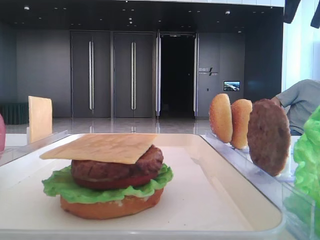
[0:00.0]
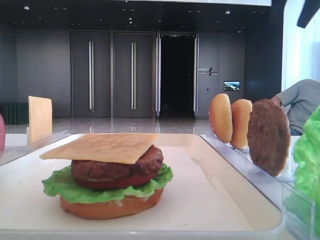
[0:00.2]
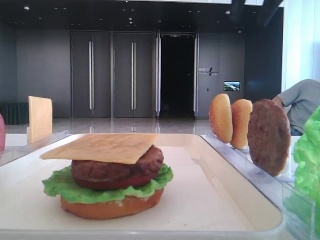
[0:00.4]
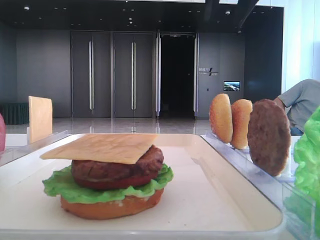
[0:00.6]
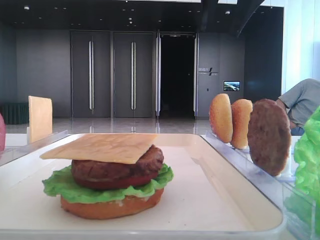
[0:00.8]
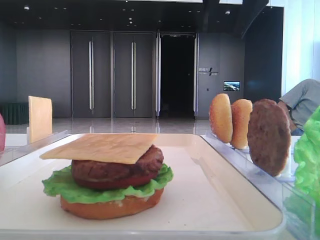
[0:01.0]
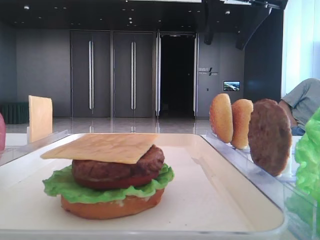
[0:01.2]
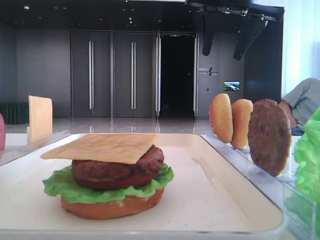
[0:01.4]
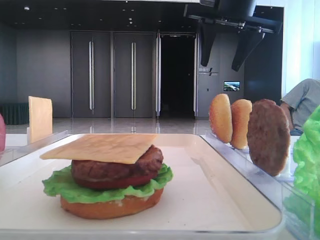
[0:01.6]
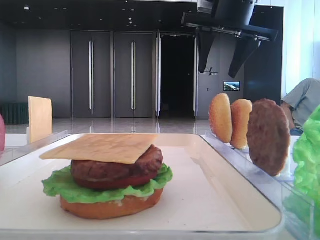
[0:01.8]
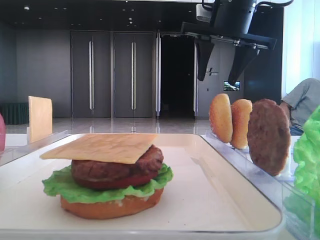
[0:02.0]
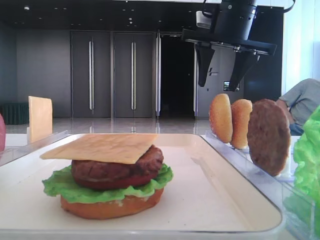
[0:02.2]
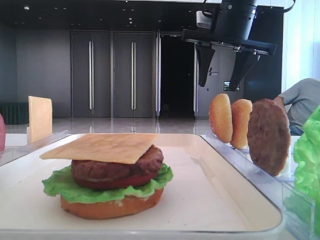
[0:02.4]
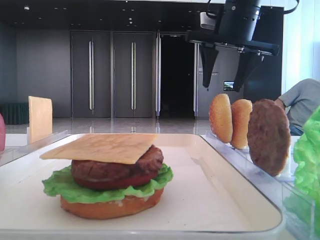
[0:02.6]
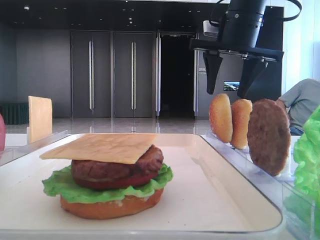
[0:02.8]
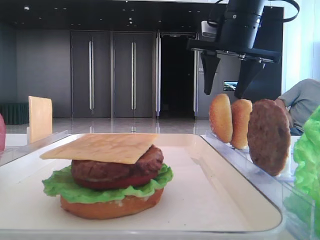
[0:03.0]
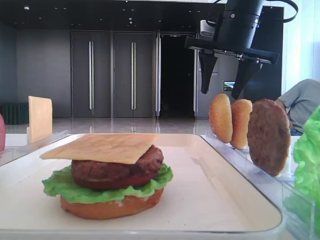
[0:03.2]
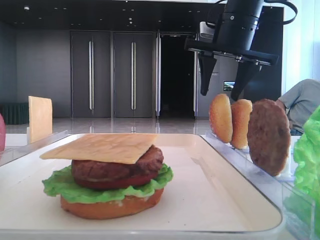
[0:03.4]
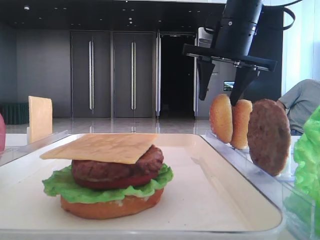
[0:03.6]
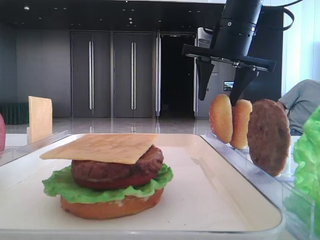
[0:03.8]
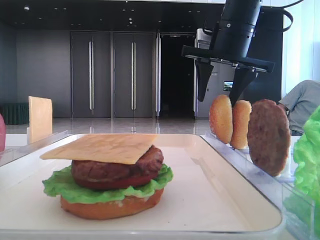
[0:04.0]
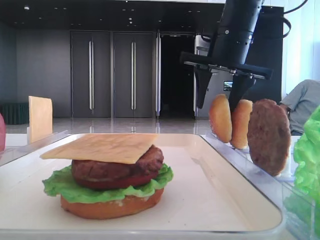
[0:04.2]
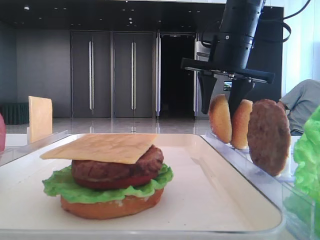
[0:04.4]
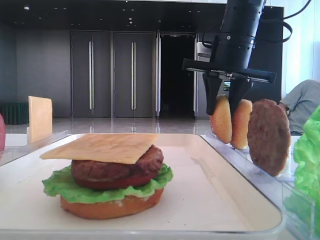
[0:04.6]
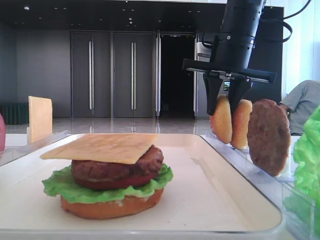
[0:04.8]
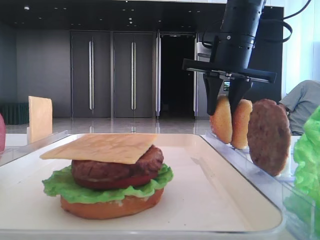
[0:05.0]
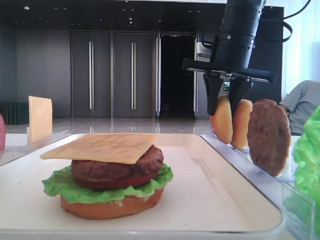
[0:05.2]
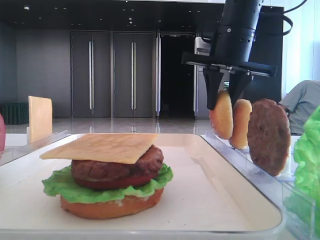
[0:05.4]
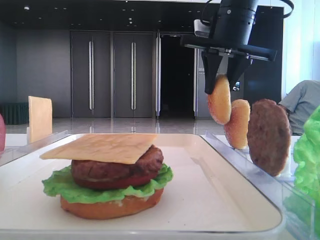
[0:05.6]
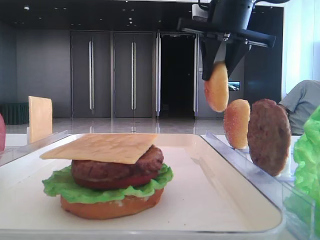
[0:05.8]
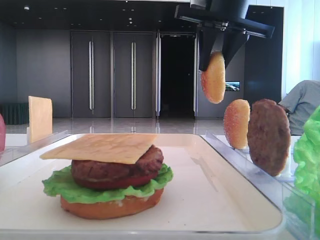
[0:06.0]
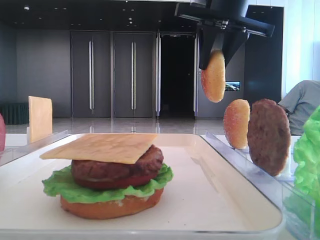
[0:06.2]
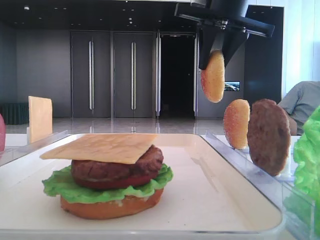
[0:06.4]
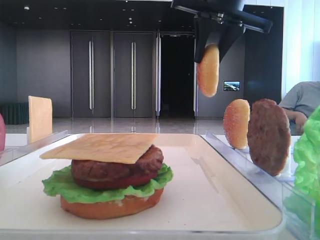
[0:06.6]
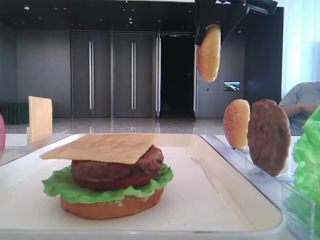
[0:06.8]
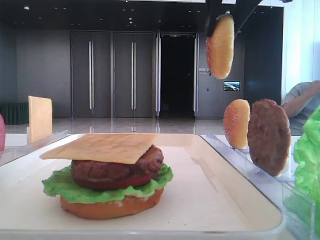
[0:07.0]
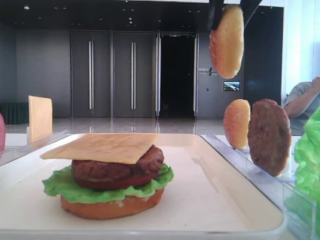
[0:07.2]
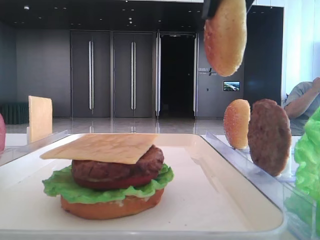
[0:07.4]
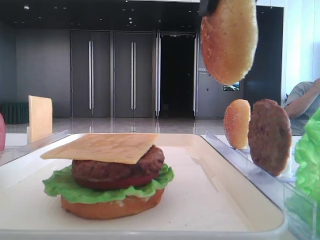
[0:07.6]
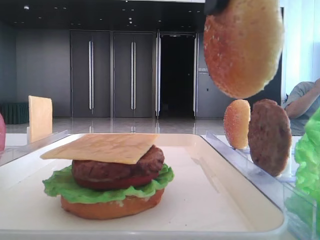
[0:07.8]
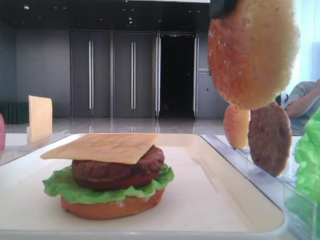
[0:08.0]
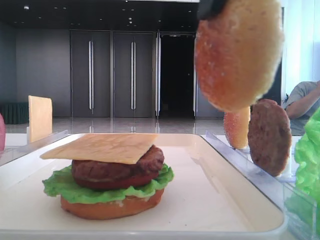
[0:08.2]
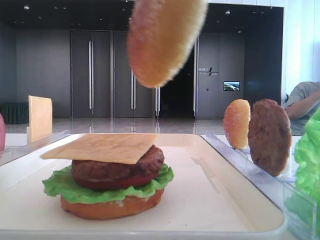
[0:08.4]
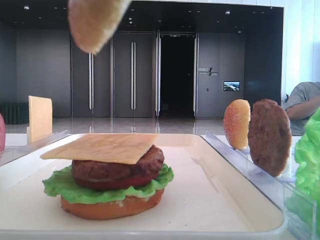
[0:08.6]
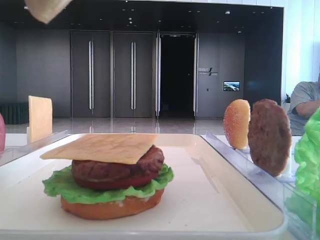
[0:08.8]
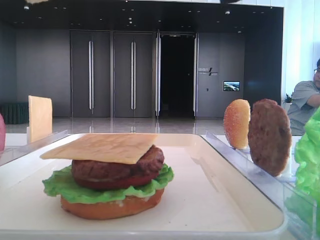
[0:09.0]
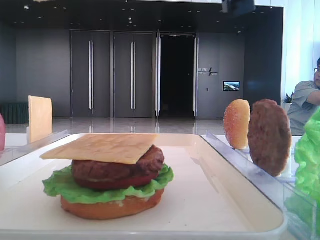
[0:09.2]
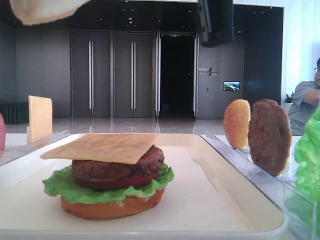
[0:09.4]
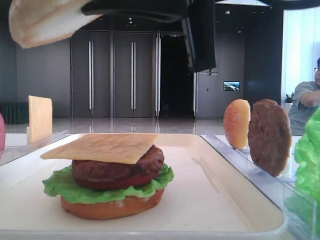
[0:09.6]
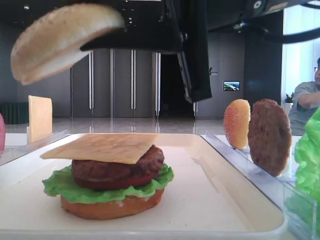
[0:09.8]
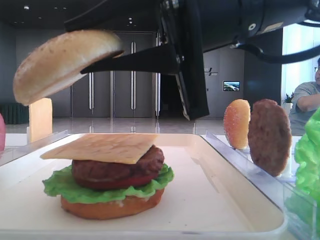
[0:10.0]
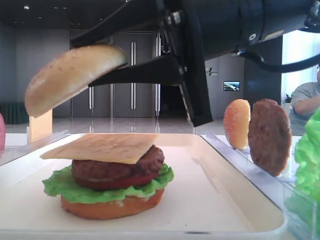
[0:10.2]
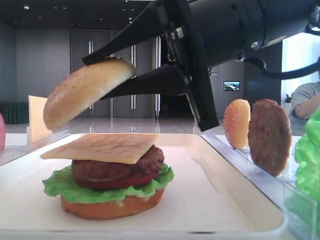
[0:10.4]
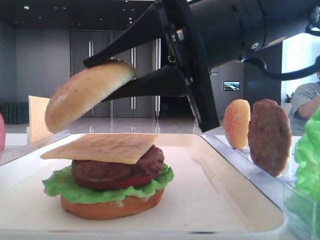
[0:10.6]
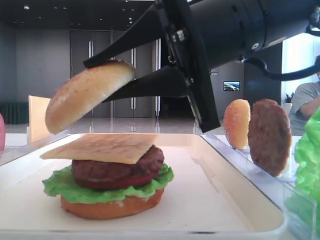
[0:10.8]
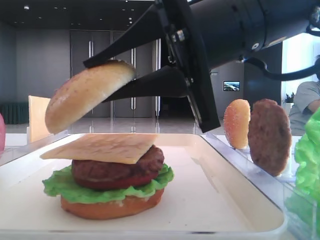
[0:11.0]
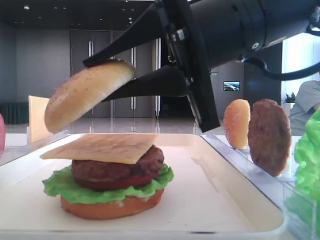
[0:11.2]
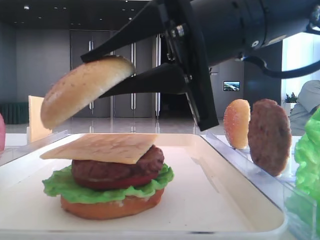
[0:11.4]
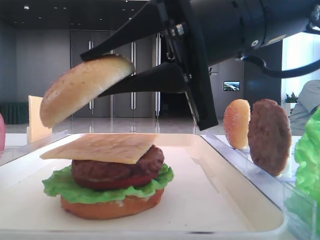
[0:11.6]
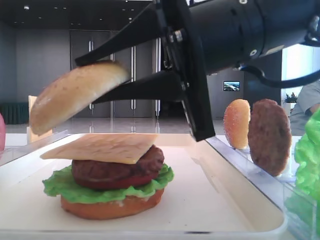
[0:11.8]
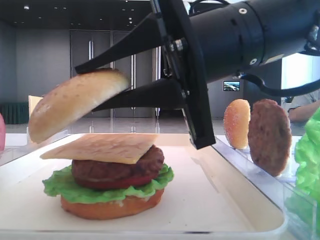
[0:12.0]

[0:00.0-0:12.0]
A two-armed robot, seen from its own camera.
Step, 0.0 to 5.0 s: Pick up the top bread slice with the right hand.
0.0 to 1.6 s: The right gripper moves to the left and downward, approximately 15 cm.
1.6 to 3.0 s: The right gripper changes place by about 5 cm.
3.0 to 4.4 s: The grippers move only a little.
4.4 to 6.0 s: The right gripper shifts approximately 5 cm upward, and closes.
6.0 to 7.6 s: The right gripper is displaced backward by roughly 20 cm.
9.0 to 10.4 s: The right gripper shifts approximately 10 cm downward and forward.
10.4 to 12.0 s: The grippers move only a little.

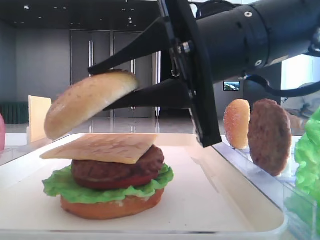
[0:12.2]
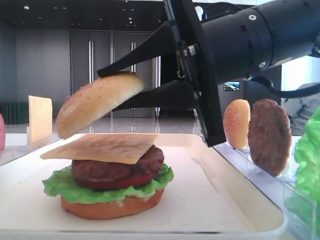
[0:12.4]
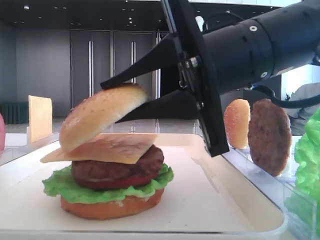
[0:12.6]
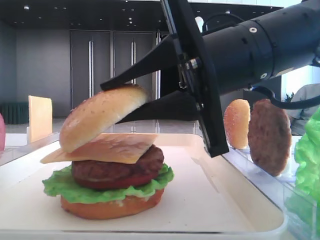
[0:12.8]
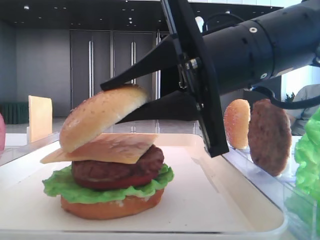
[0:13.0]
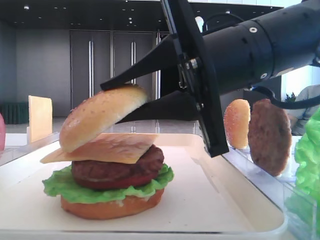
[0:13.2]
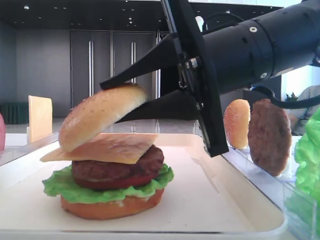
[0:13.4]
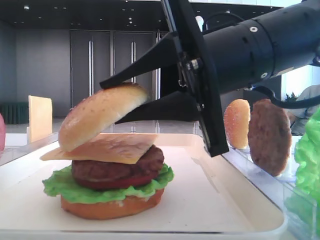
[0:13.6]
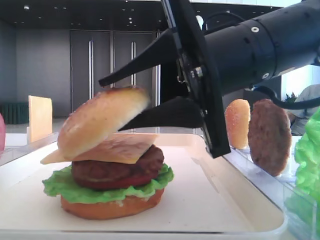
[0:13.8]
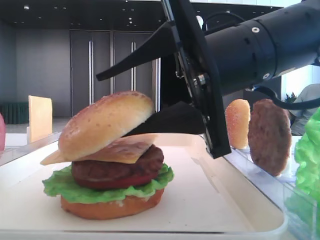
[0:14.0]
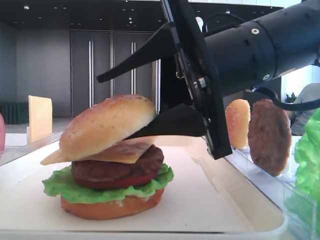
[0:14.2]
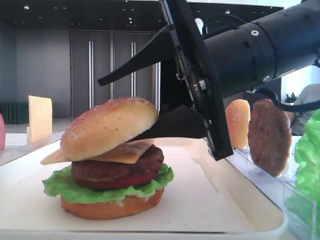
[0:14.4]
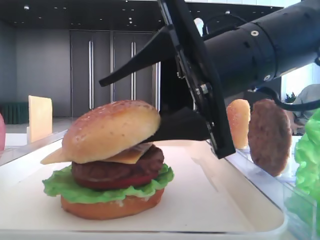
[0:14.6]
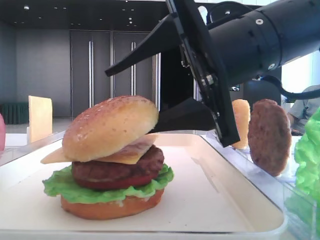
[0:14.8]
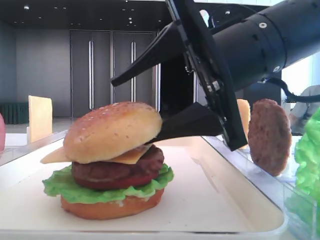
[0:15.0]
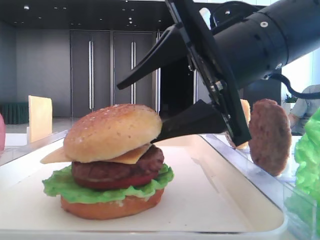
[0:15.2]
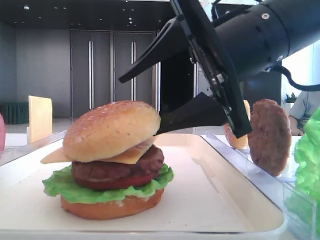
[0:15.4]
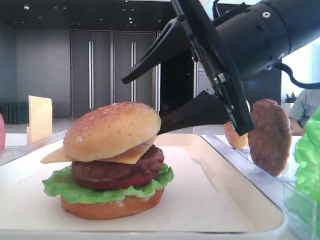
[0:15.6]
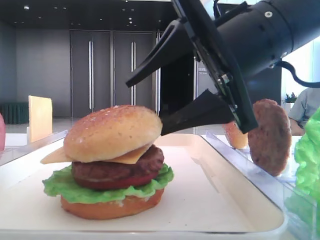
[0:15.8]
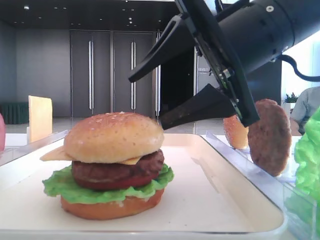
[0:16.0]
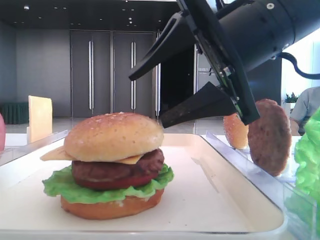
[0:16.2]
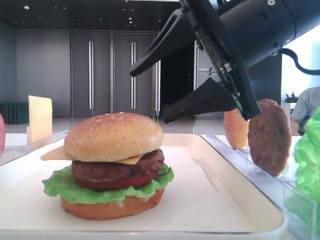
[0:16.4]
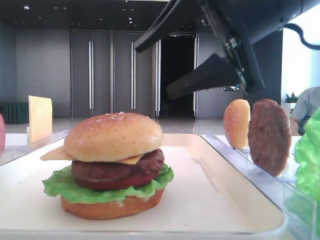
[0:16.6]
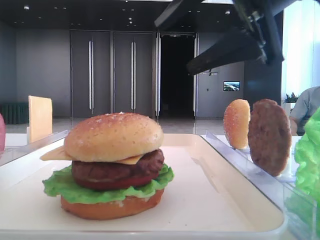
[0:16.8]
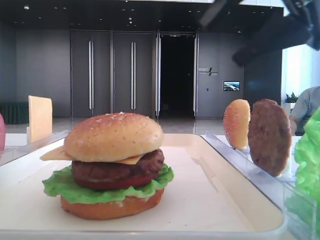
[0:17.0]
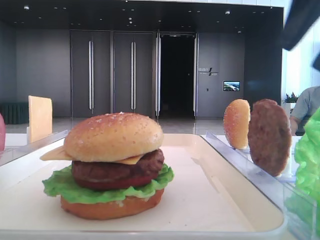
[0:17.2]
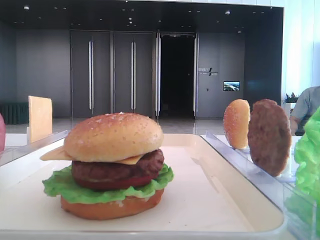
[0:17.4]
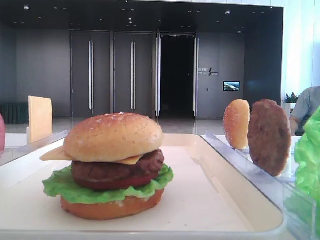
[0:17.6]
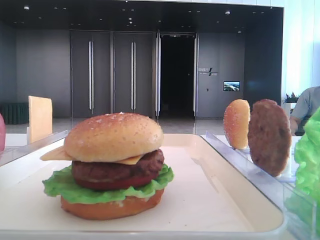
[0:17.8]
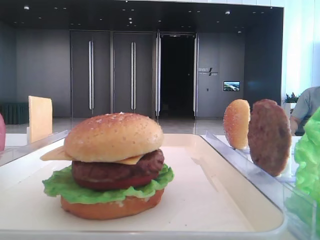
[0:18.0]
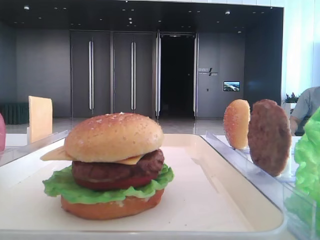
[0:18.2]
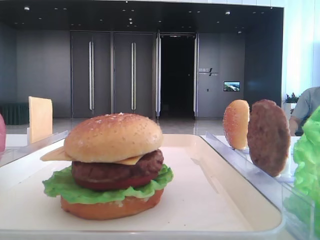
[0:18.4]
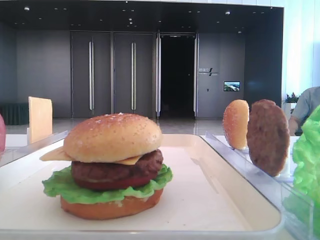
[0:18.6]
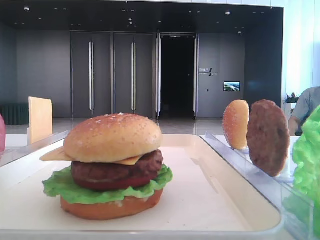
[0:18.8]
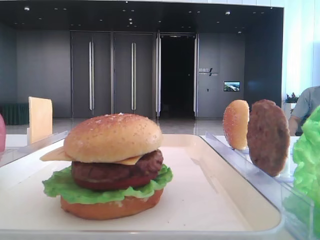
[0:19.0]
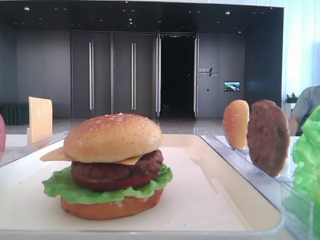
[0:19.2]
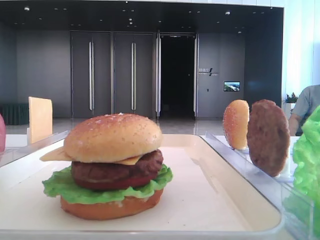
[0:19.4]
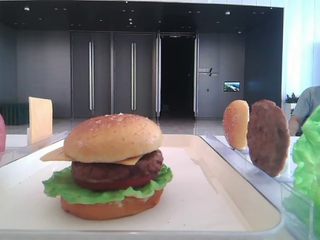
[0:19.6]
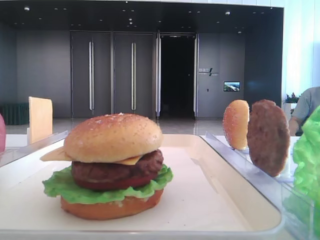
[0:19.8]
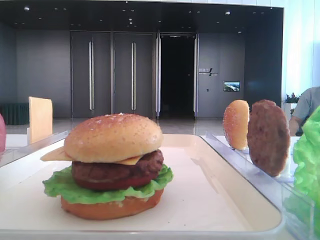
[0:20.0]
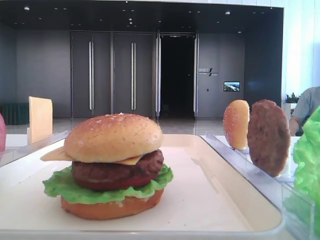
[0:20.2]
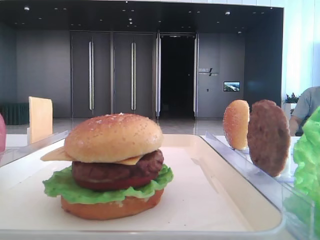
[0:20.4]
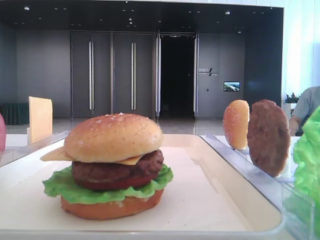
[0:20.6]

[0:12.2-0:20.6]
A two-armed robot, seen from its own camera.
Step, 12.2 to 15.8 s: Place the top bread slice on the cheese with the right hand.
12.2 to 13.6 s: There are only small adjustments of the grippers.
13.6 to 15.0 s: The right gripper opens its fingers.
15.0 to 16.4 s: The grippers move only a little.
16.4 to 17.8 s: The right gripper travels to the right, upward and backward by about 25 cm.
17.8 to 19.2 s: The right gripper travels backward by about 15 cm.

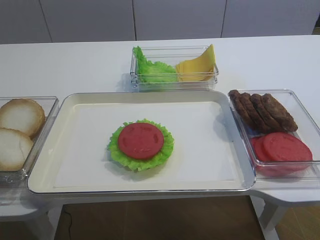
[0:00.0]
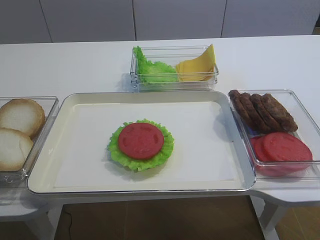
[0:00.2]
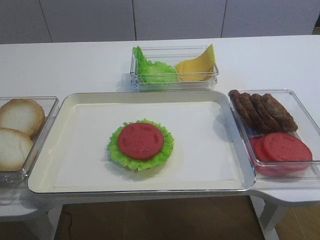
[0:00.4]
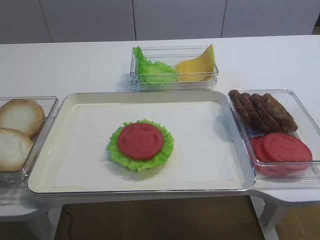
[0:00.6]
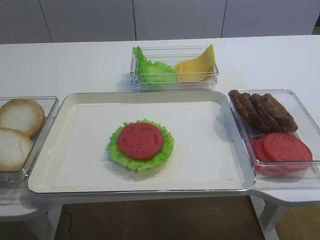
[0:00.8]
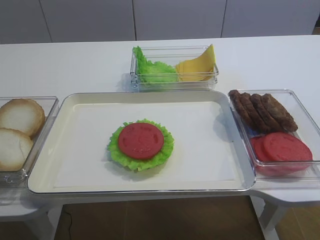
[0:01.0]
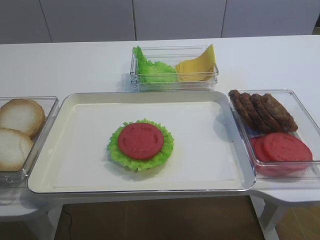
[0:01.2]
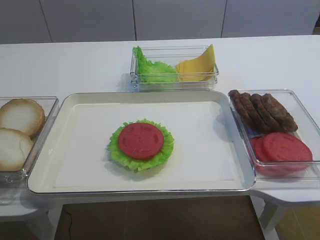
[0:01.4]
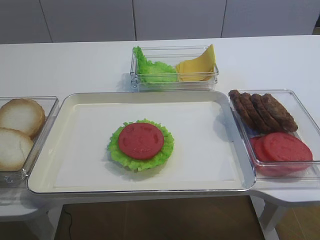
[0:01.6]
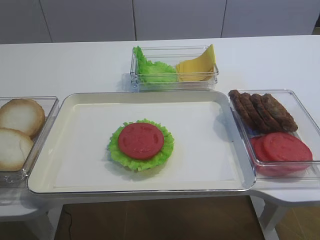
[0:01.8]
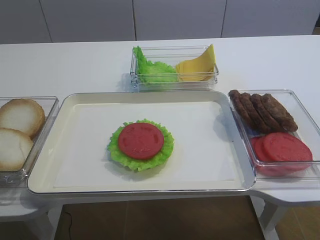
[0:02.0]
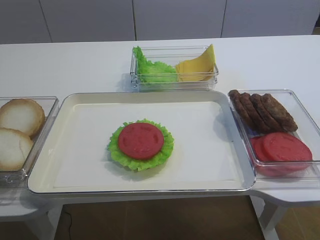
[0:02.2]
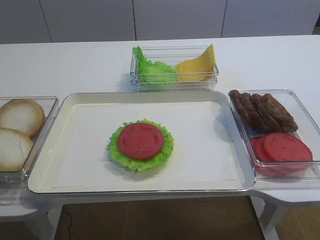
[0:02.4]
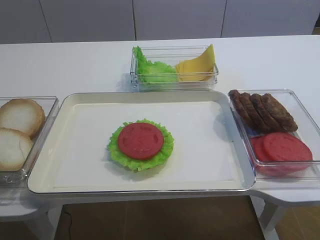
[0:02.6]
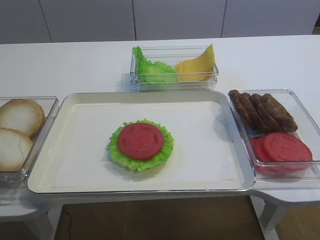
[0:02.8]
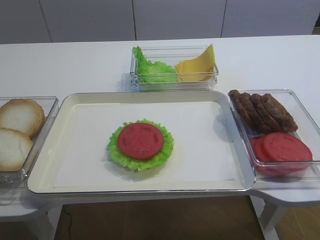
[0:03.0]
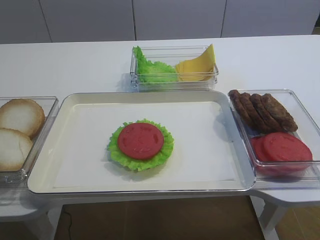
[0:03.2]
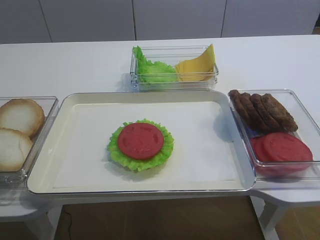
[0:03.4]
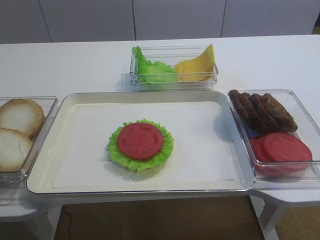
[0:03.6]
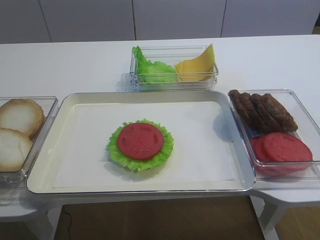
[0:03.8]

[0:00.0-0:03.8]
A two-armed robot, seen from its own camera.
1.2 to 2.6 s: The two grippers keep their place.
2.6 to 3.8 s: The right gripper travels forward and upward by approximately 20 cm.
